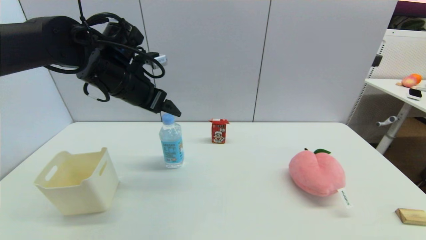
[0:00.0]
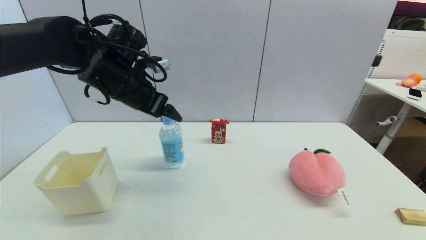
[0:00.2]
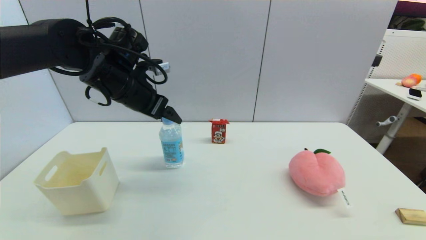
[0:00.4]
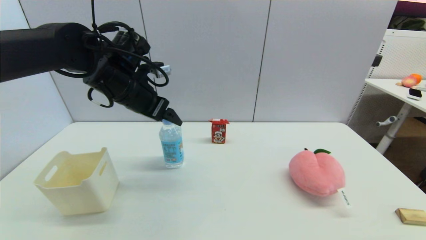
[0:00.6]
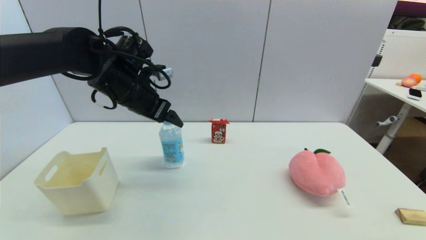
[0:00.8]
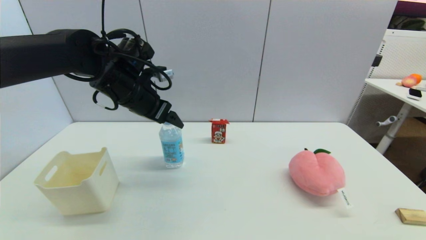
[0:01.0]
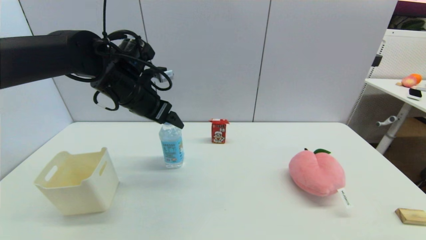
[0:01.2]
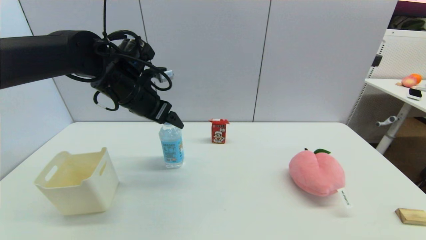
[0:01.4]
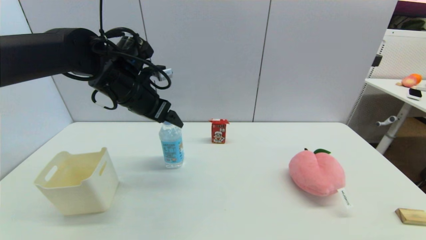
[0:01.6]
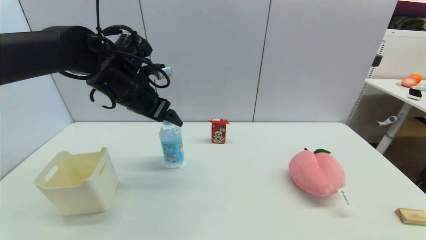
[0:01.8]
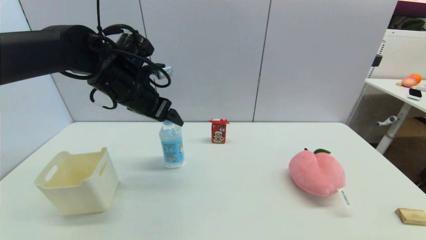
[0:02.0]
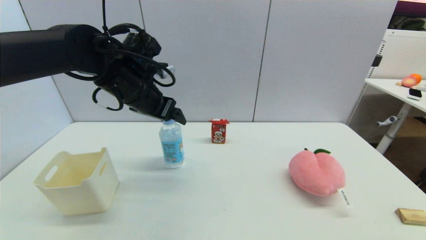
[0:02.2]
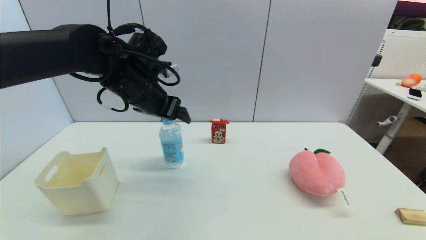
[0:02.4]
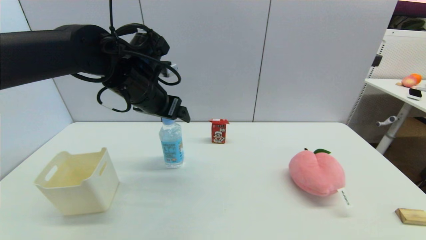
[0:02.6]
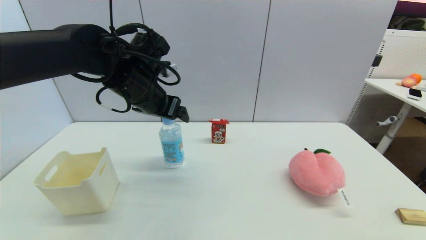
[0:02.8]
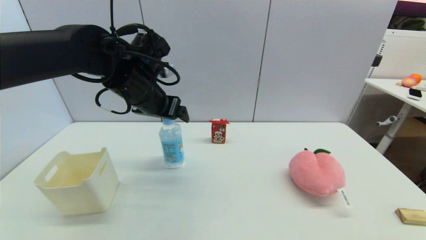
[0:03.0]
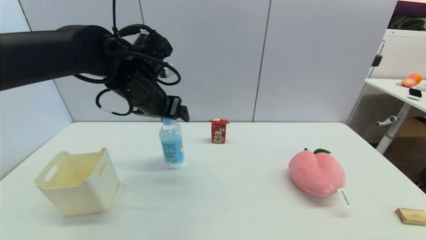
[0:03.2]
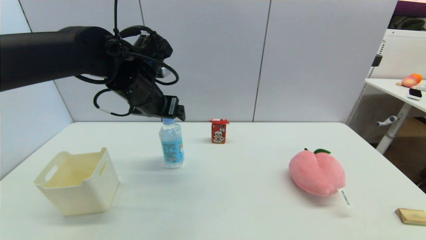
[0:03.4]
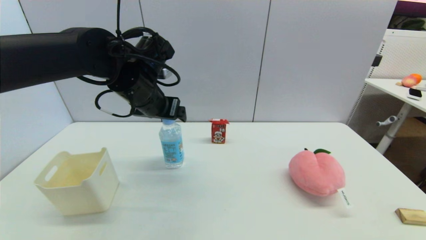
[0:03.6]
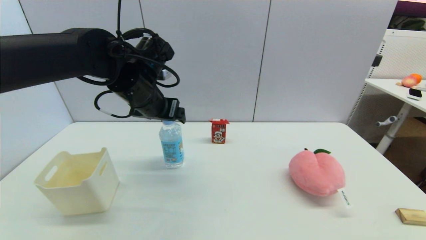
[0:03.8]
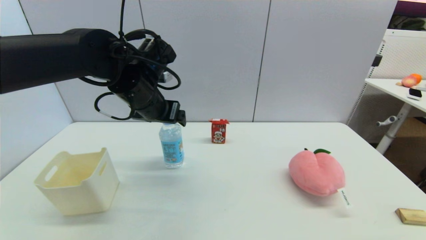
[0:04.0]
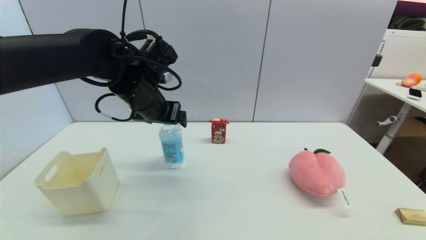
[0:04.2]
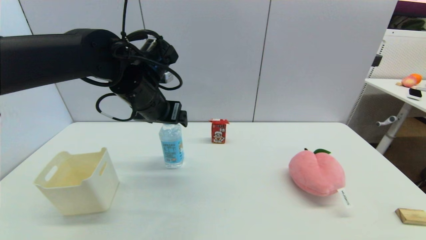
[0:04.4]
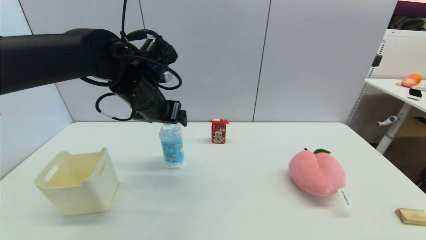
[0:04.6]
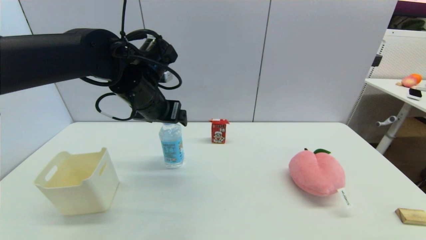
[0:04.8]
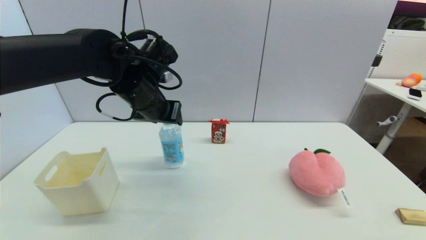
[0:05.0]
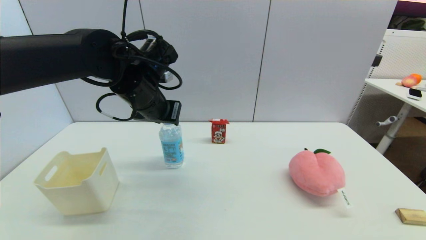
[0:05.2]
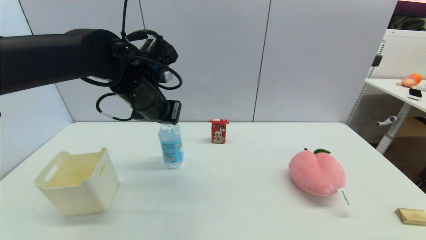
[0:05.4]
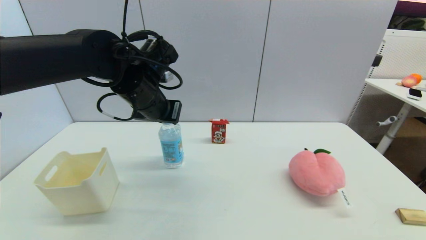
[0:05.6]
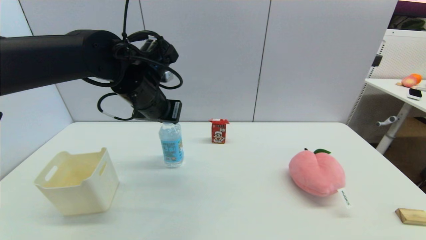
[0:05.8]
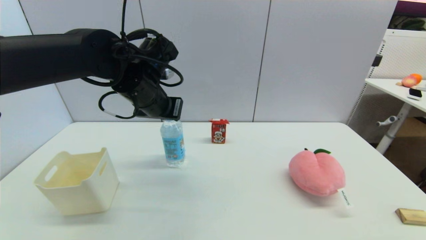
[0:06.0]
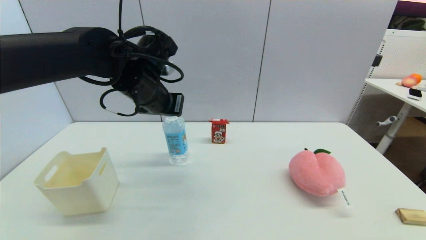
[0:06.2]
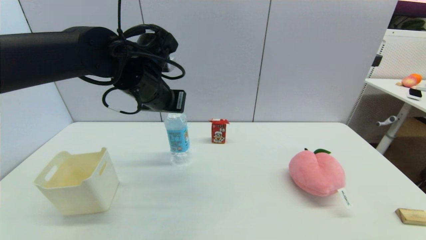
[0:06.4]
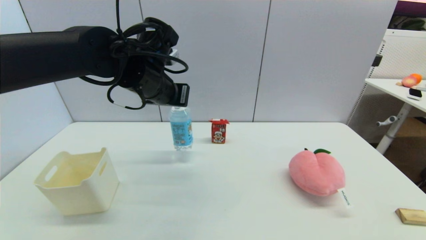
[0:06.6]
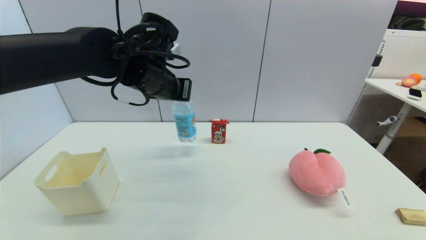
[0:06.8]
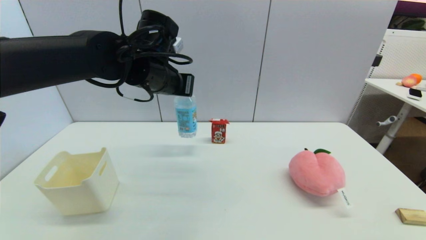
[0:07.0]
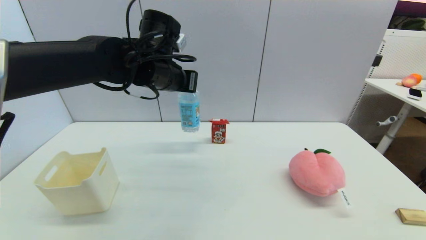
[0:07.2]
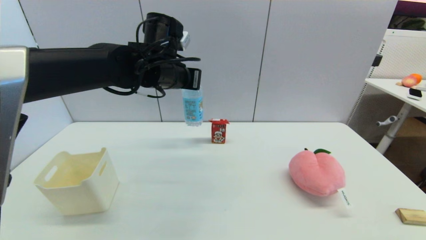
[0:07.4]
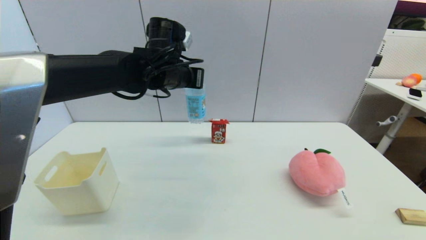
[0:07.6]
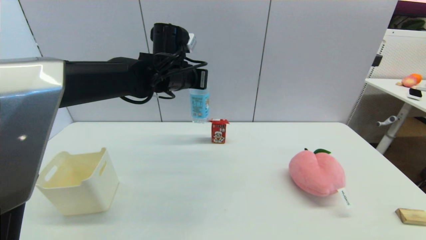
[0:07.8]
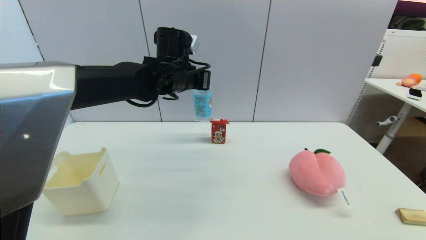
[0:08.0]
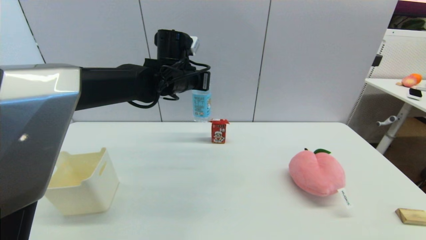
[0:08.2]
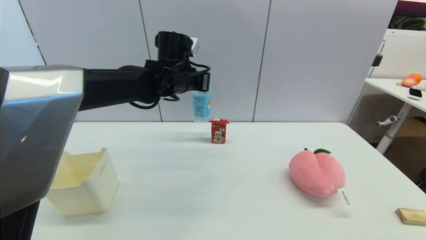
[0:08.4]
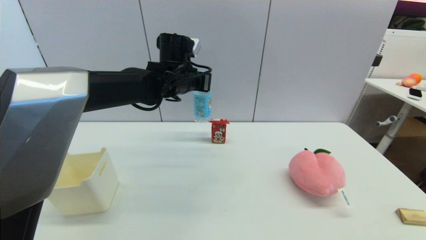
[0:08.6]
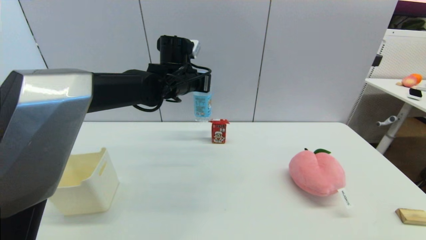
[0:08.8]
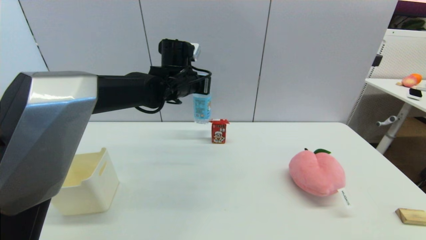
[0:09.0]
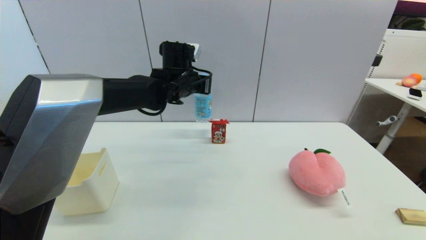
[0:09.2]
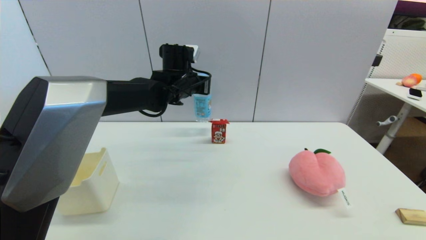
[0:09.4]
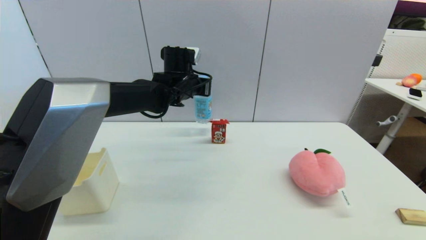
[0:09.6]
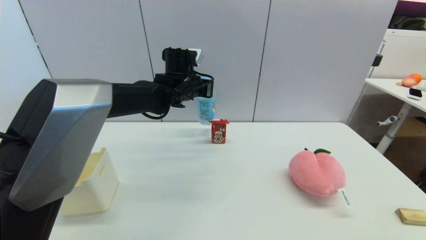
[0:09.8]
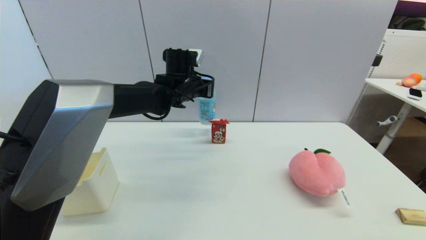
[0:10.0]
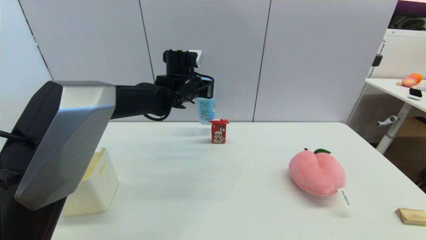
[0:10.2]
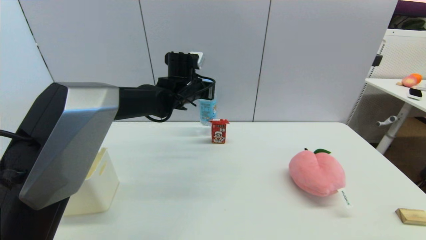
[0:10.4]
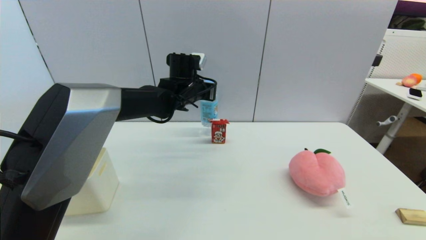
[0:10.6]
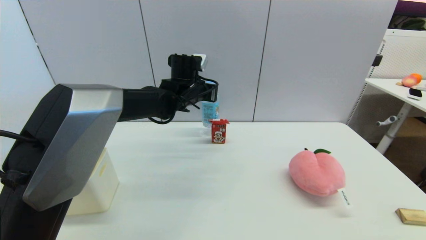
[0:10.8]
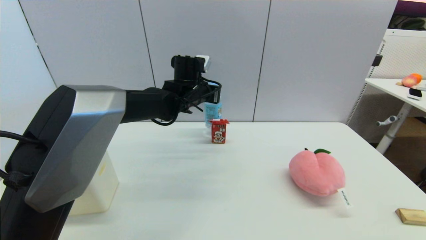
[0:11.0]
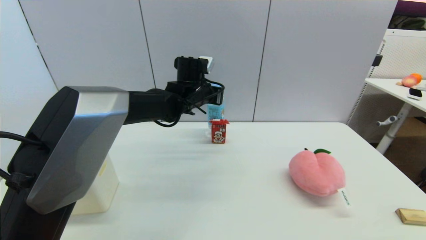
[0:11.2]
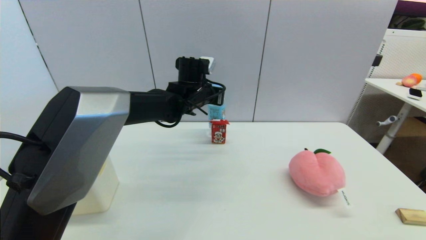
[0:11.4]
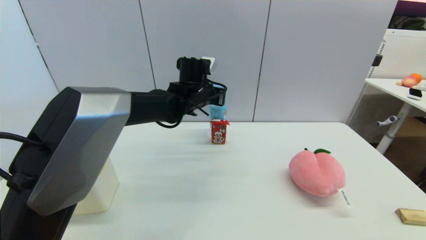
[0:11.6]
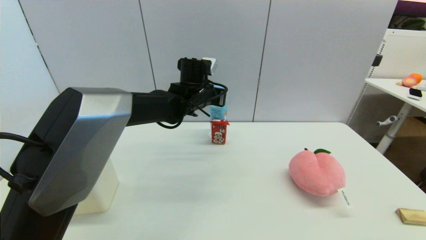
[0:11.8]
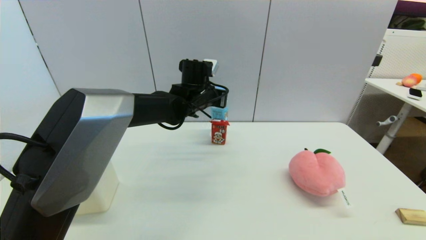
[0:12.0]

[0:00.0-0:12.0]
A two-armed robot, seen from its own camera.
Step, 0:00.0 to 0:06.6: Grasp the soda water with left gripper.
0:00.0 to 0:03.0: There are only small adjustments of the grippers.
0:03.0 to 0:04.4: There are only small adjustments of the grippers.
0:04.4 to 0:06.0: The left gripper closes up.
0:06.0 to 0:07.6: The left gripper travels forward by approximately 5 cm.
0:07.6 to 0:09.0: The left gripper changes place by some 5 cm.
0:09.0 to 0:12.0: There are only small adjustments of the grippers.

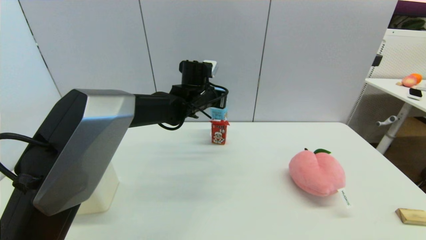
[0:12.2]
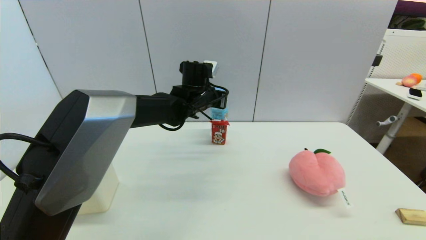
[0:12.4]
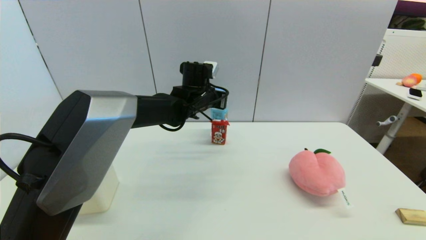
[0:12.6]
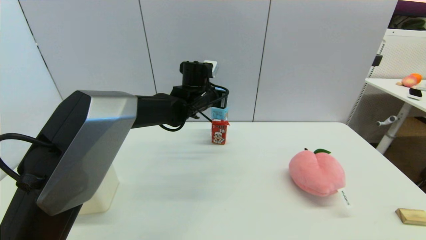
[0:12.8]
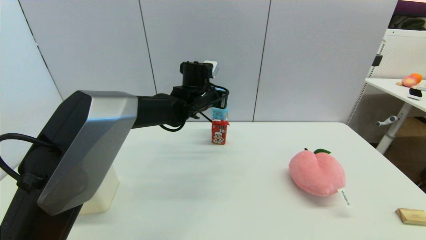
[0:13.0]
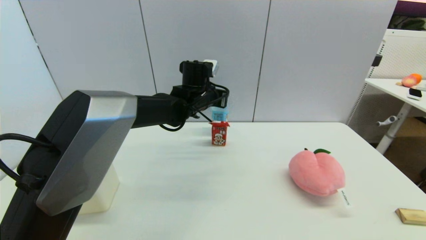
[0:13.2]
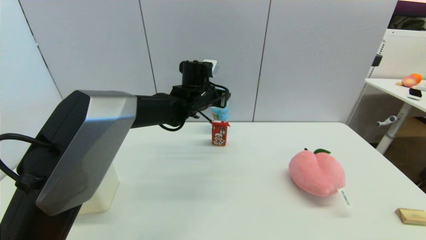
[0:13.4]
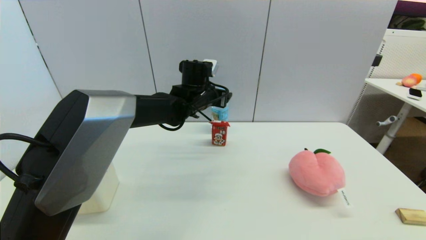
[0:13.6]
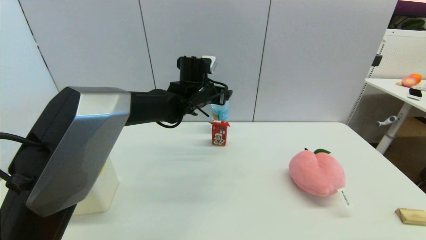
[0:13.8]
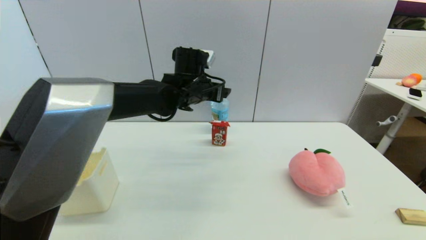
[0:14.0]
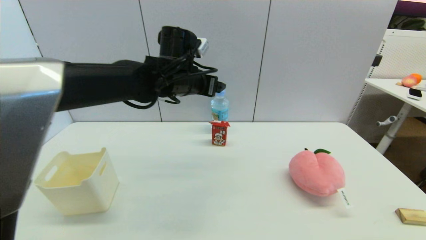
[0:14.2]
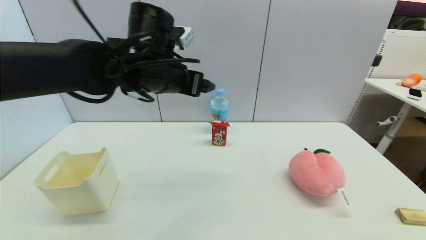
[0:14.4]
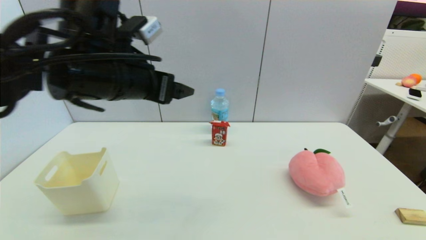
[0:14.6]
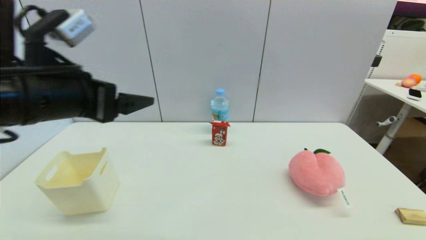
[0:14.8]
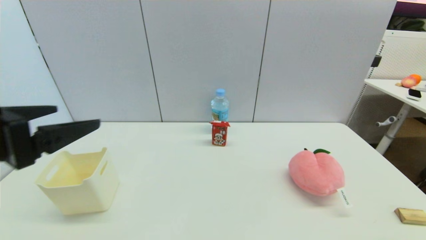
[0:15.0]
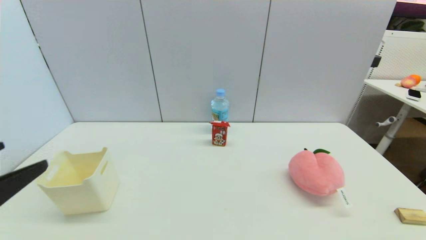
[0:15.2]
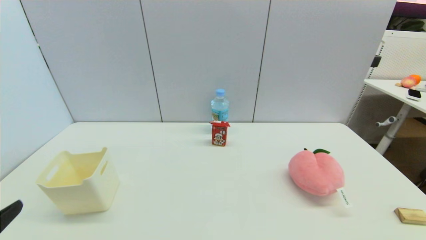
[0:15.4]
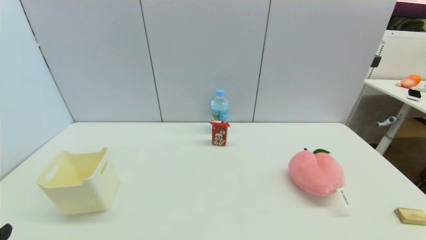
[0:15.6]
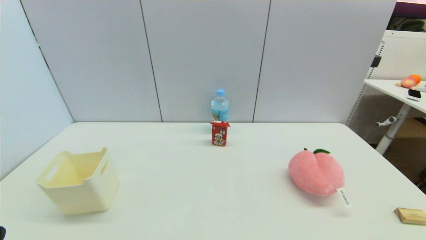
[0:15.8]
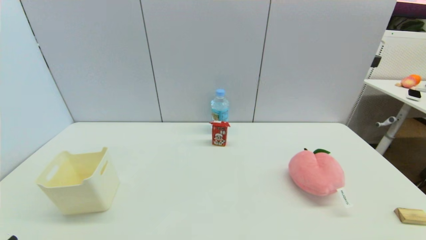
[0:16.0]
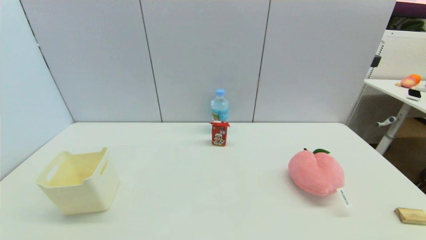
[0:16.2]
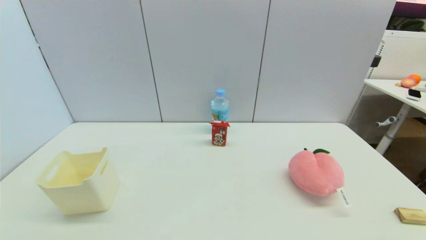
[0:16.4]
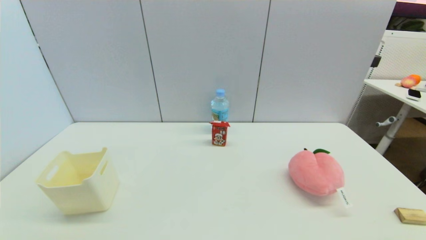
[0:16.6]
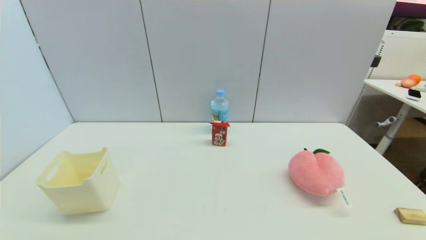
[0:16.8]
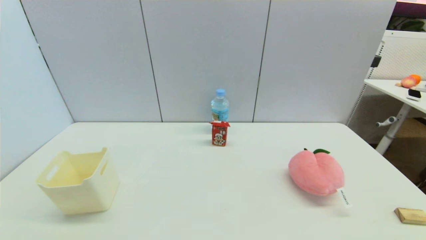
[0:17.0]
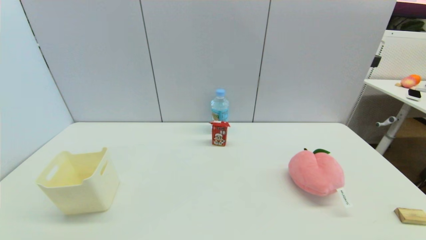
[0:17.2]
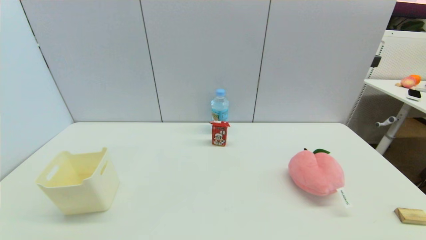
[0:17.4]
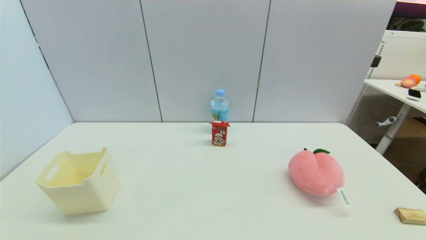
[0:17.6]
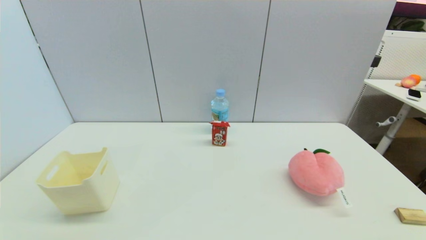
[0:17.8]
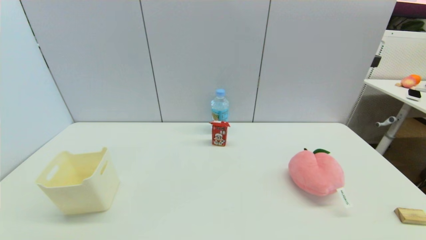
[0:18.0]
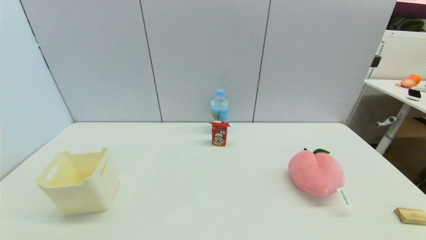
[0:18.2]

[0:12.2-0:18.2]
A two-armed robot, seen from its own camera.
0:12.2 to 0:13.8: The left gripper opens its fingers.
0:13.8 to 0:15.2: The left gripper goes some 40 cm backward and to the left.
0:15.2 to 0:16.6: The left gripper travels downward and backward by some 20 cm.
0:16.6 to 0:18.2: Both grippers stay about where they are.
